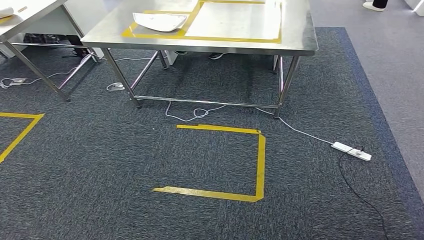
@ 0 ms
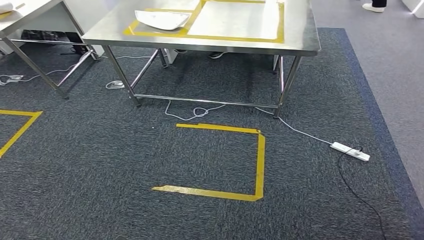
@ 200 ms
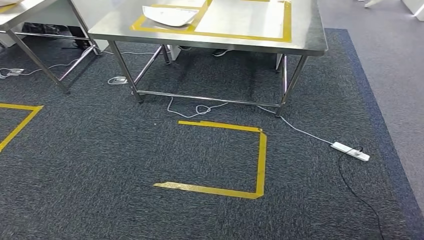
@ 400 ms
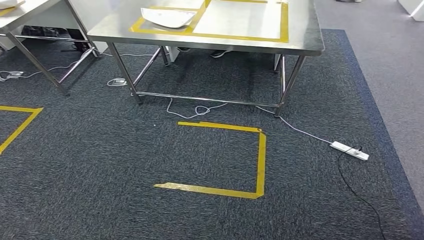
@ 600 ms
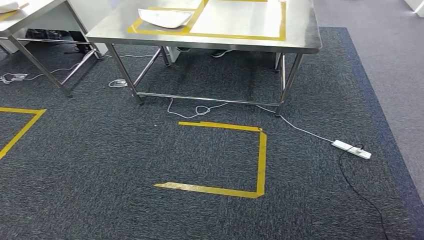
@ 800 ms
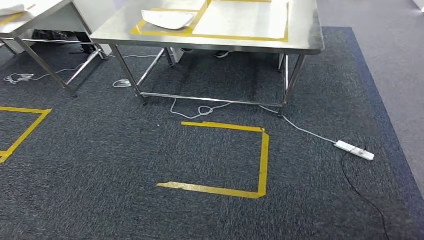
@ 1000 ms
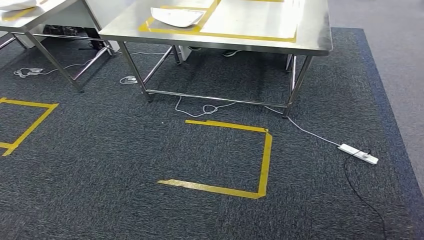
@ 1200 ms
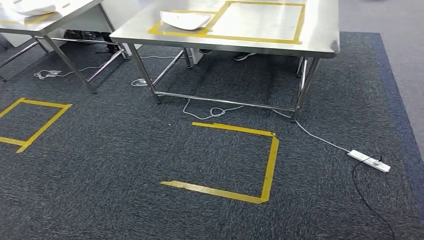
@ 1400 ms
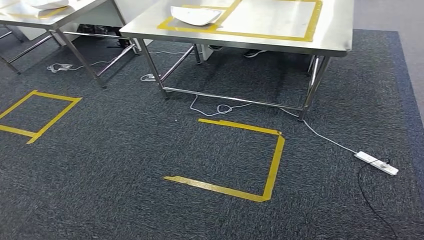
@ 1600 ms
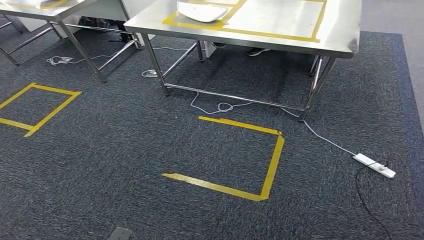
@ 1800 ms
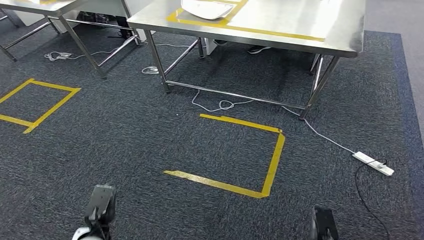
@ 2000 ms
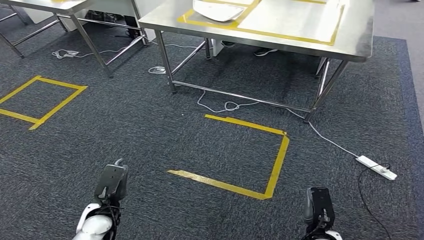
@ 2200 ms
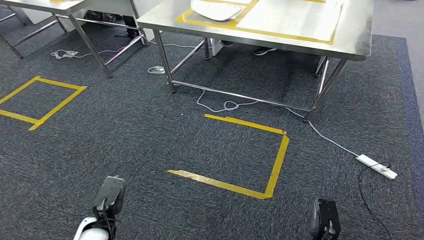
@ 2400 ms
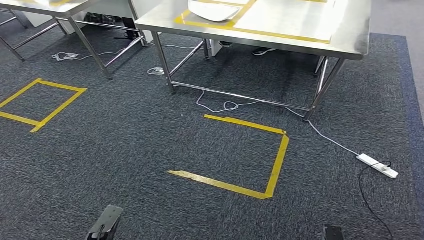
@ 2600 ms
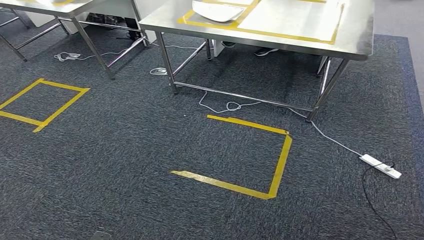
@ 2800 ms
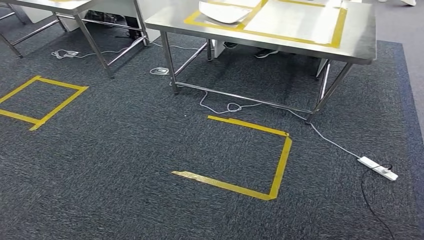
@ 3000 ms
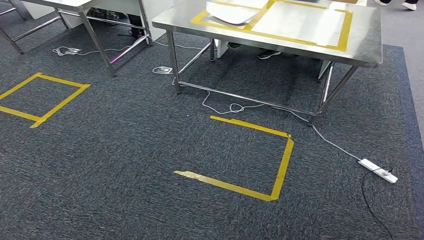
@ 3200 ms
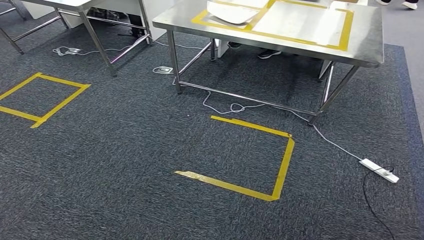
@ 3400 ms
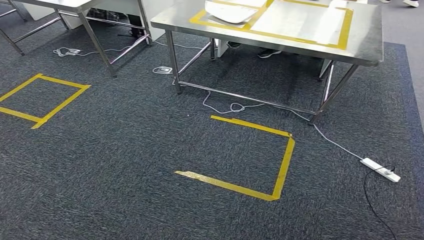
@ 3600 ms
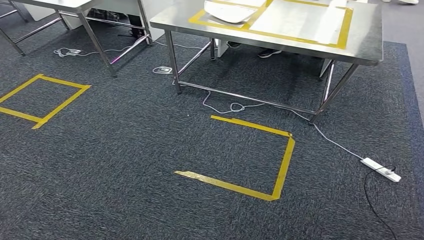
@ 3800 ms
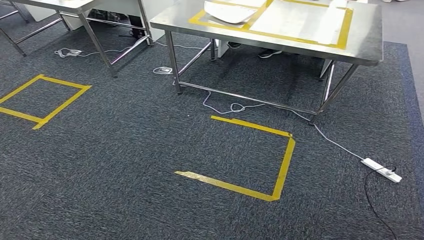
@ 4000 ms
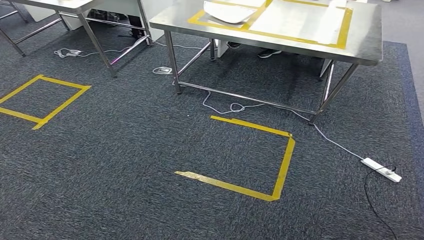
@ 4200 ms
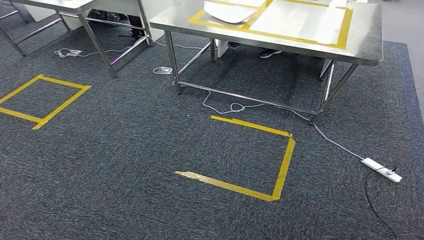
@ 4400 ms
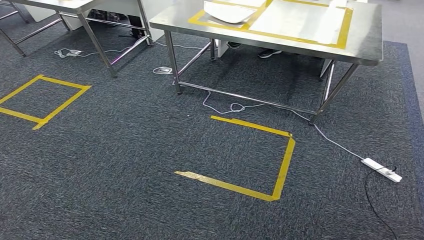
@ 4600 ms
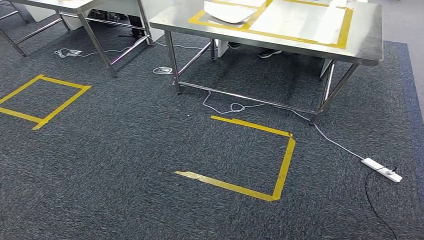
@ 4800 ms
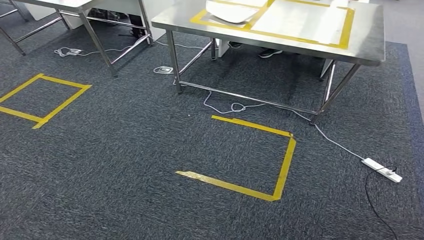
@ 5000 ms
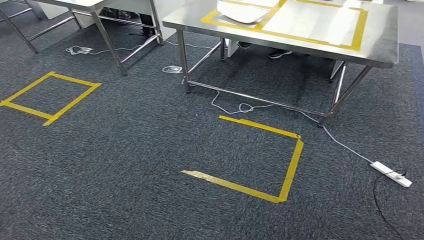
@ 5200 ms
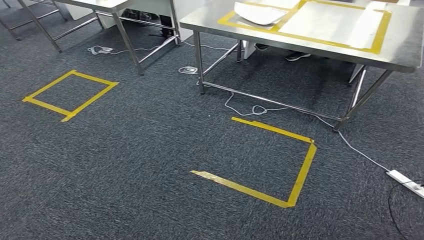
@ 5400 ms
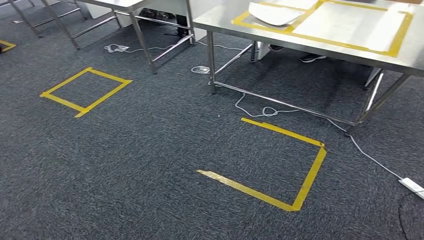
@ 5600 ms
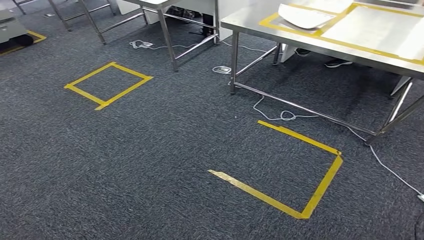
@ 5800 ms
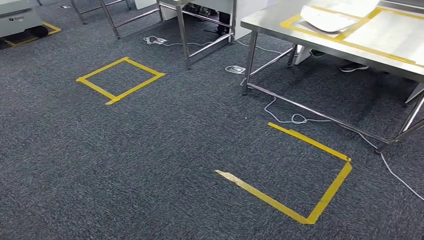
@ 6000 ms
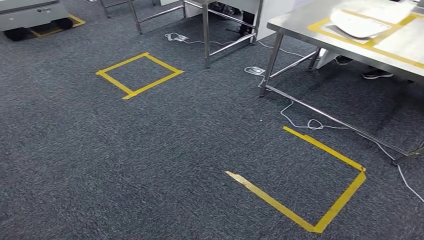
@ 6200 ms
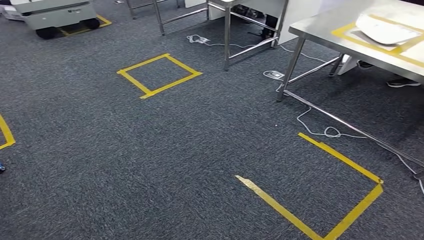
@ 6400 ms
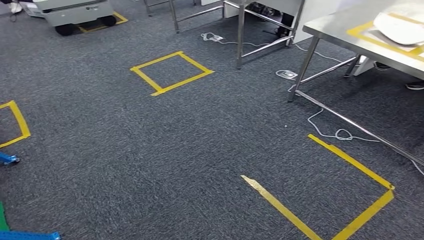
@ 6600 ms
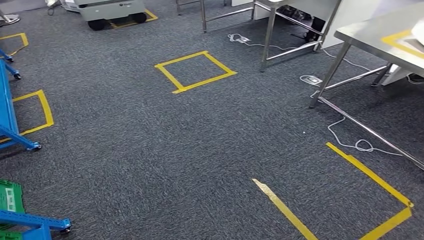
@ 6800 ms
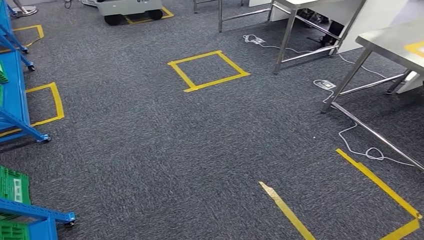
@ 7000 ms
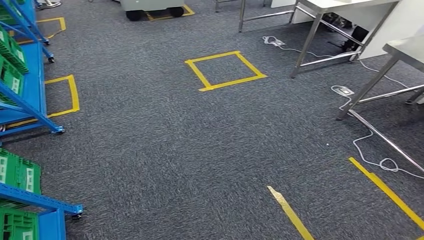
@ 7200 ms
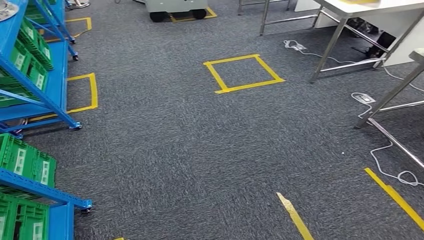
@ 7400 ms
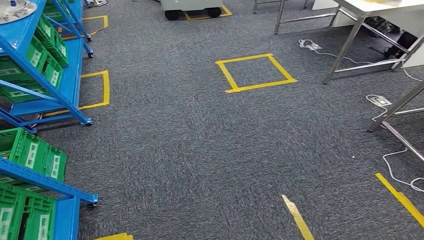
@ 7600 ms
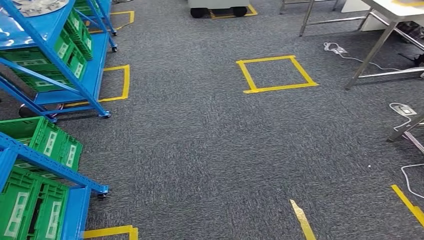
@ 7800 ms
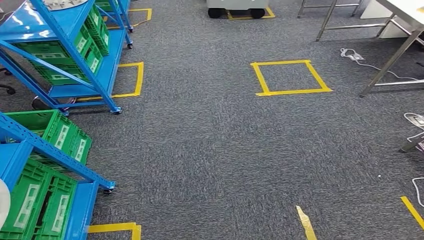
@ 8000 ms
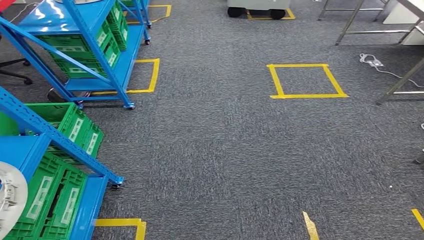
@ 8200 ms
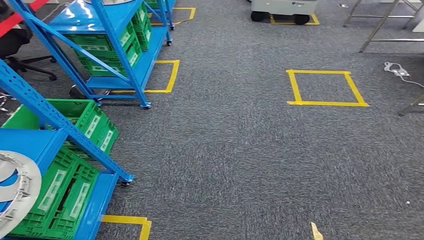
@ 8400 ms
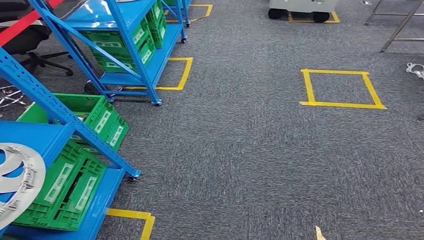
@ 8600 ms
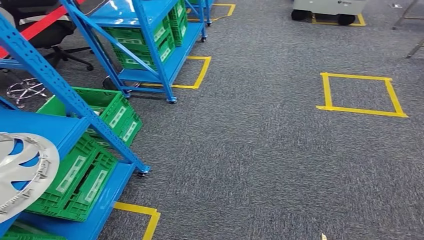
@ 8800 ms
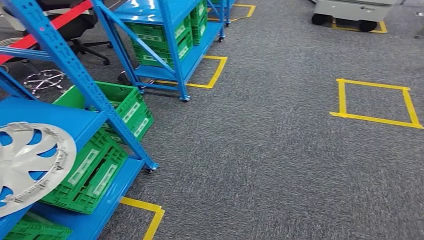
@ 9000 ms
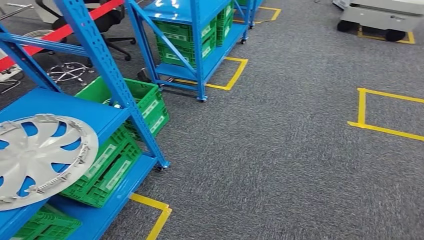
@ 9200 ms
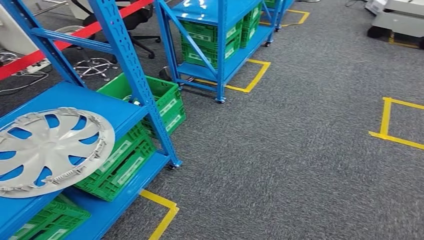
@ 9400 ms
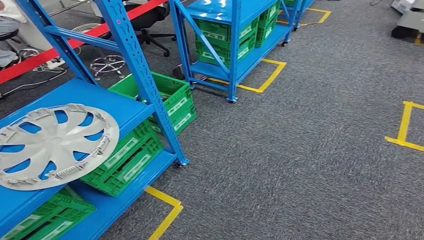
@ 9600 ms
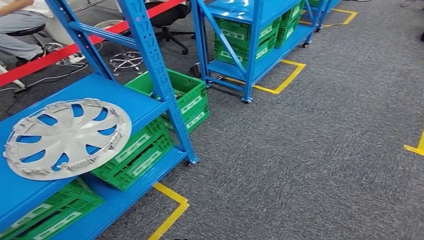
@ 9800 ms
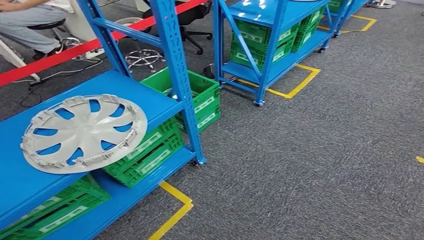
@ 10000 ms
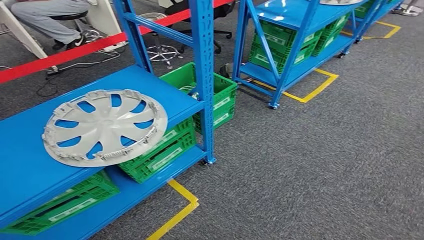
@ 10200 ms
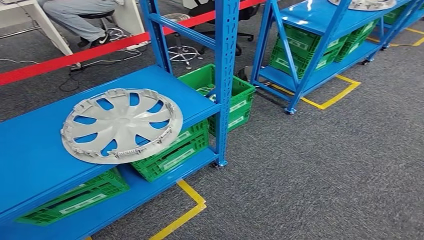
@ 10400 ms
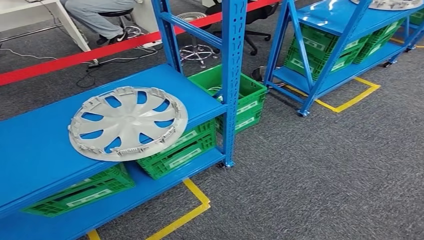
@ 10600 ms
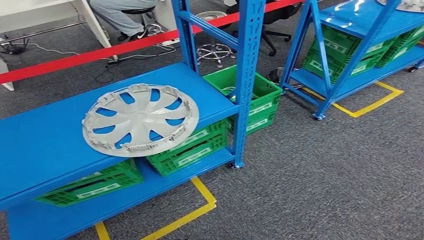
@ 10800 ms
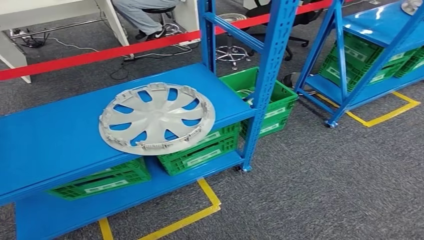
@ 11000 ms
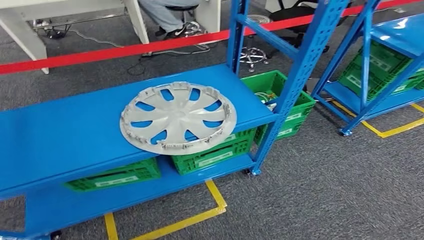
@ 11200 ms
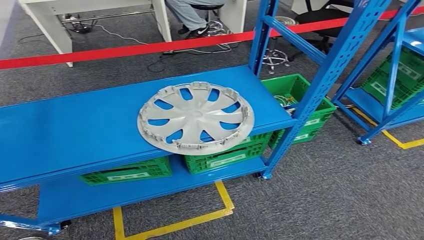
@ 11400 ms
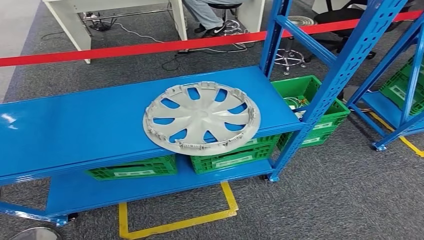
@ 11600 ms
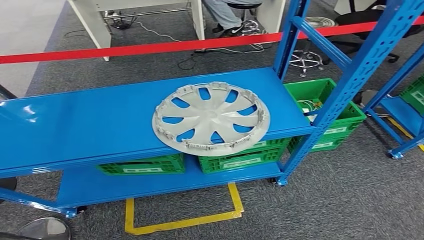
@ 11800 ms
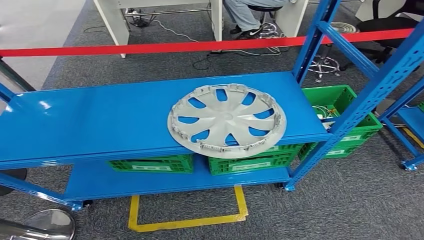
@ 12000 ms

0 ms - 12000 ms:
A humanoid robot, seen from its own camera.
3000 ms - 4400 ms: The hands stay close to where they were, moving slightly.

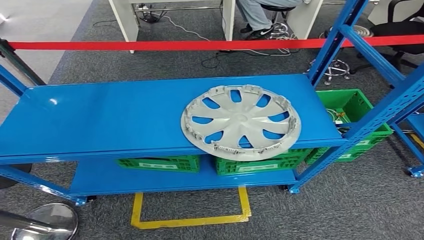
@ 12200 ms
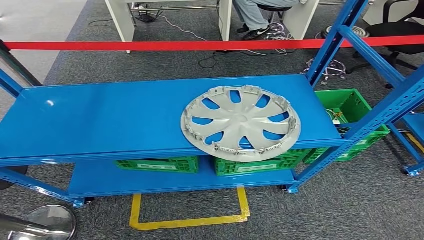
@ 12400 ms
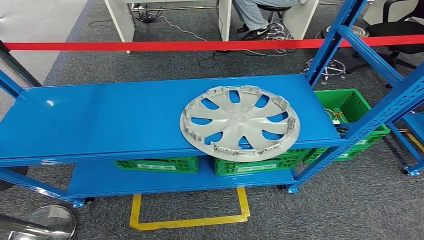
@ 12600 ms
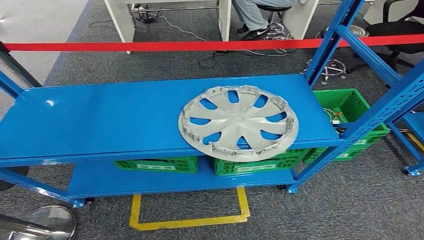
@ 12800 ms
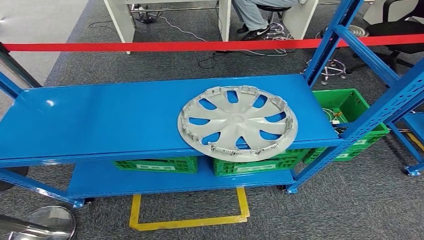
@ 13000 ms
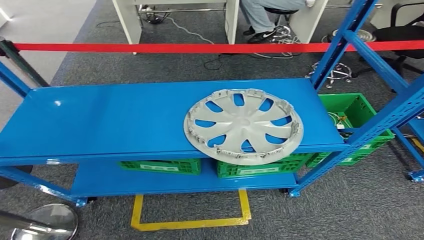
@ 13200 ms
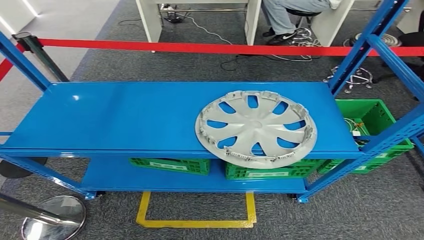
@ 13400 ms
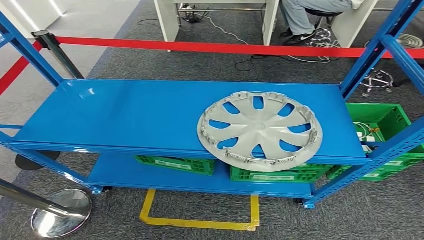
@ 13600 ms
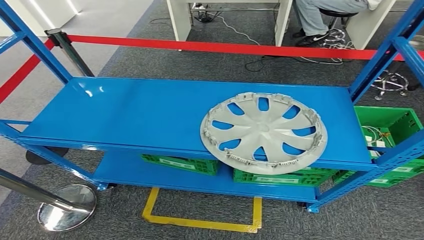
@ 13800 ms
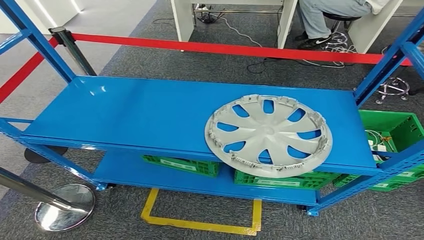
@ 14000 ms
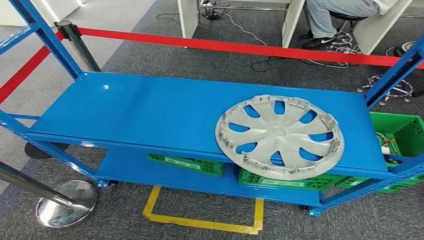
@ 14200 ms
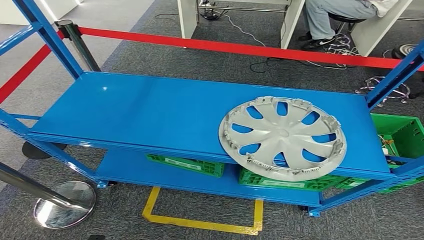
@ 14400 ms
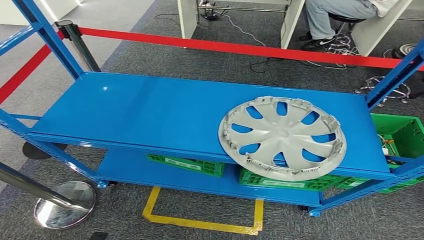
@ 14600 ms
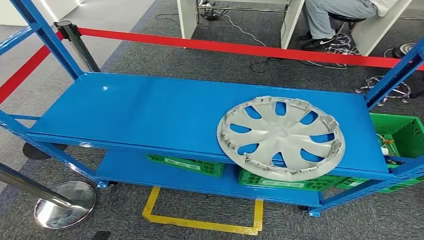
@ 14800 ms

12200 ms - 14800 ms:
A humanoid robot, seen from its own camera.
Step, 12200 ms - 14600 ms: Return to the initial position at the workbench.
